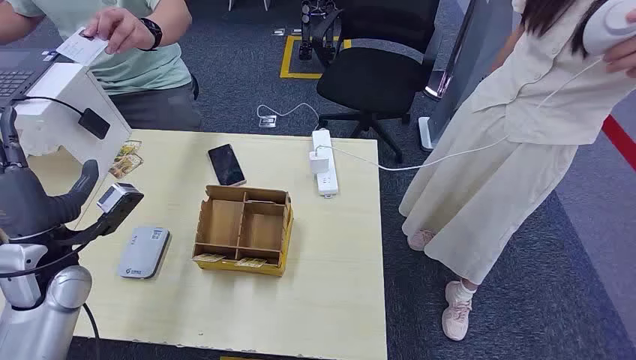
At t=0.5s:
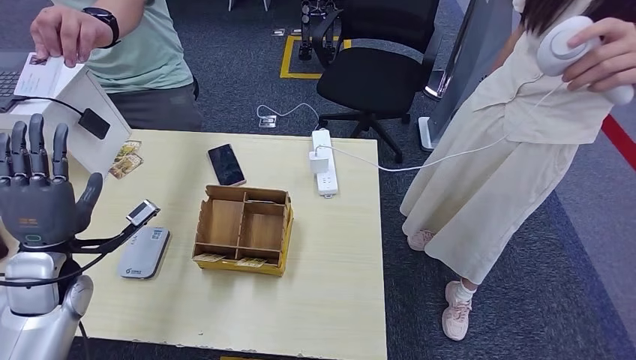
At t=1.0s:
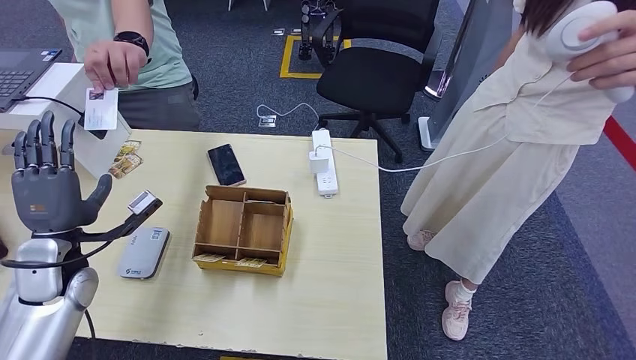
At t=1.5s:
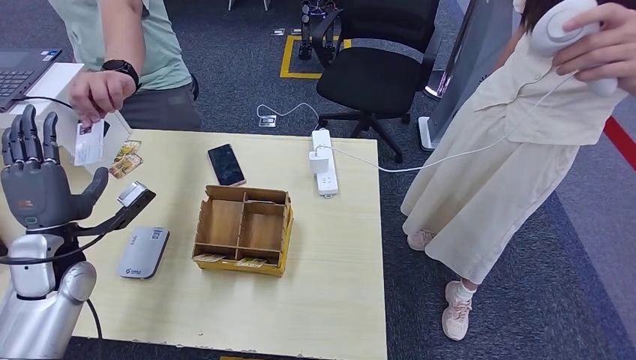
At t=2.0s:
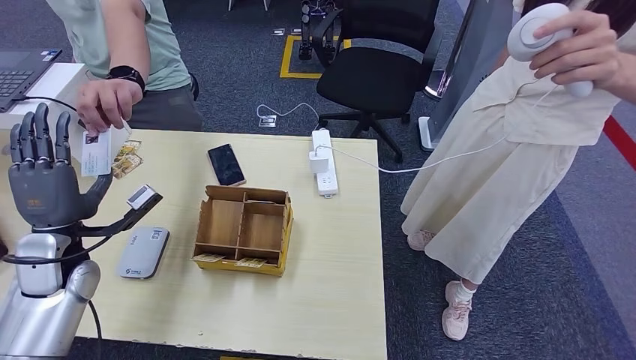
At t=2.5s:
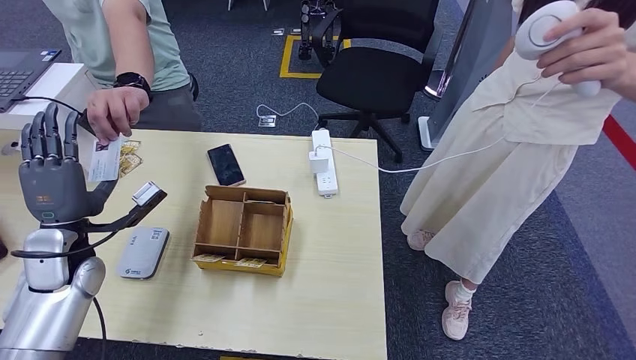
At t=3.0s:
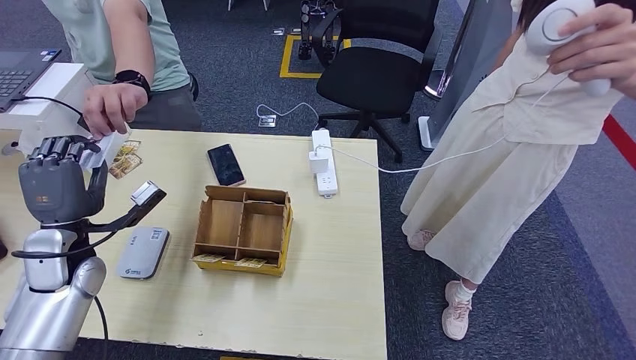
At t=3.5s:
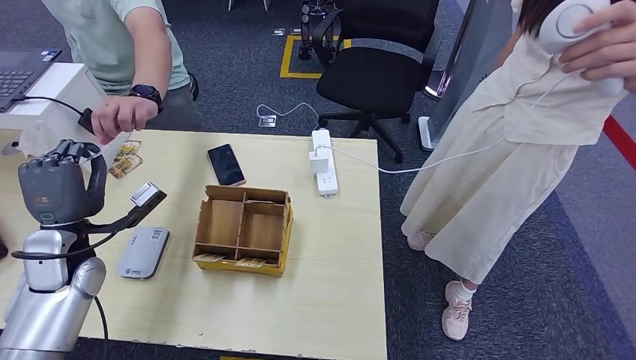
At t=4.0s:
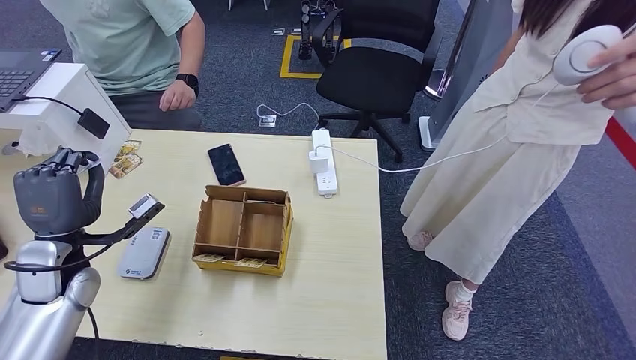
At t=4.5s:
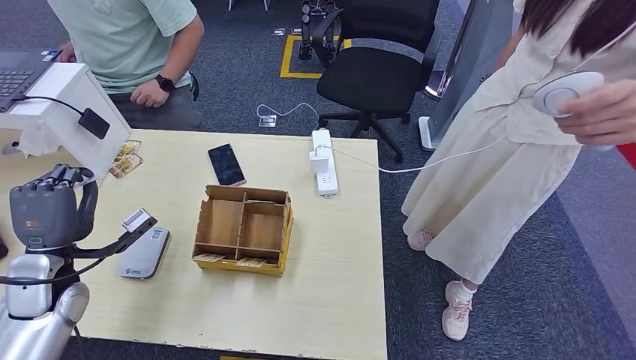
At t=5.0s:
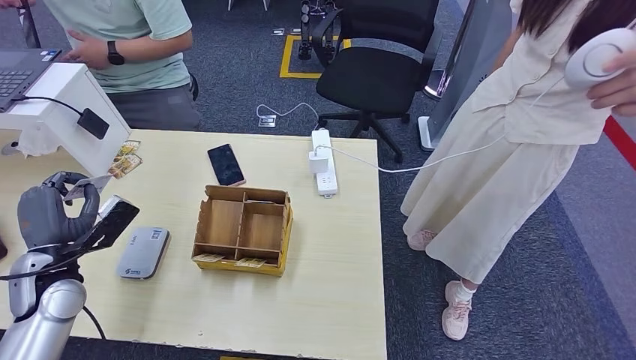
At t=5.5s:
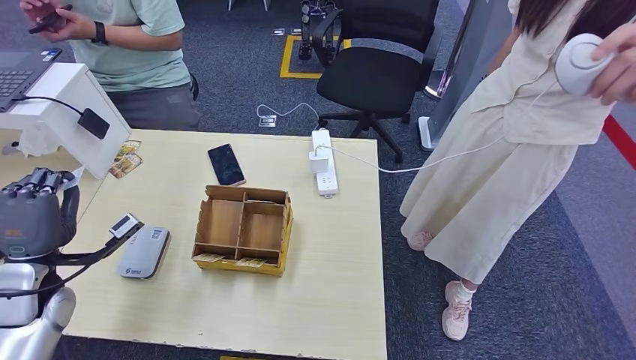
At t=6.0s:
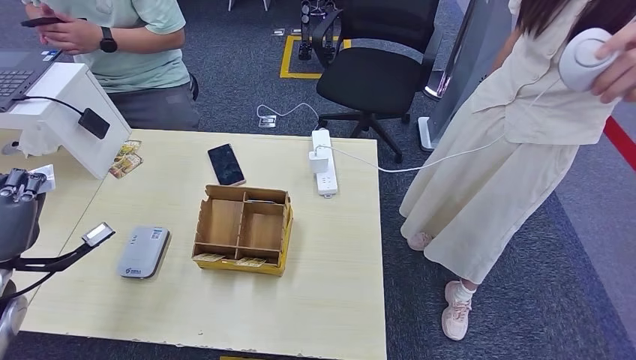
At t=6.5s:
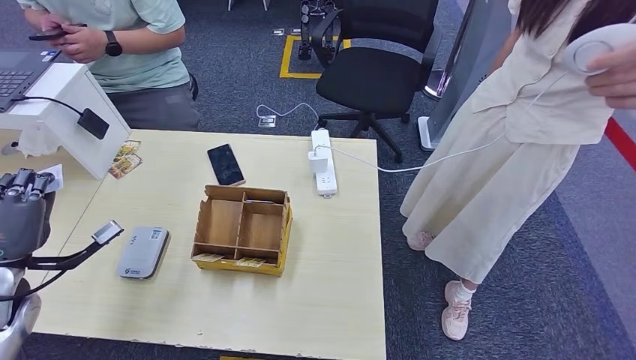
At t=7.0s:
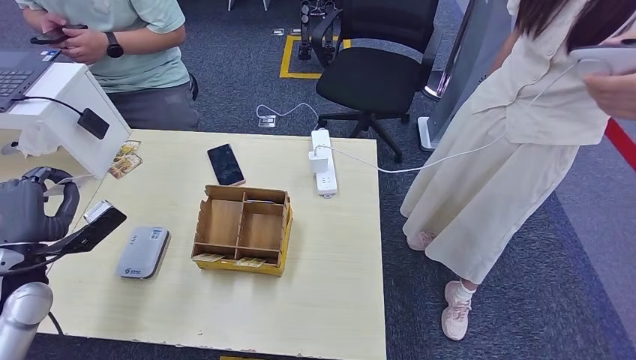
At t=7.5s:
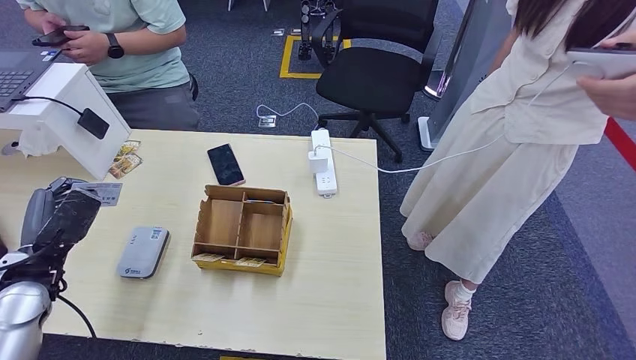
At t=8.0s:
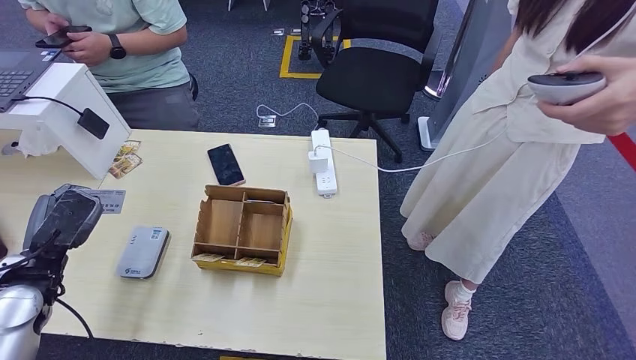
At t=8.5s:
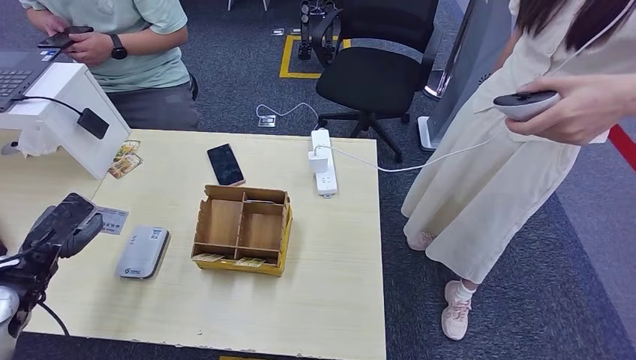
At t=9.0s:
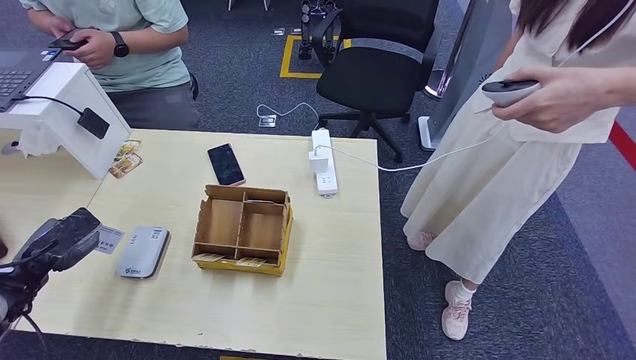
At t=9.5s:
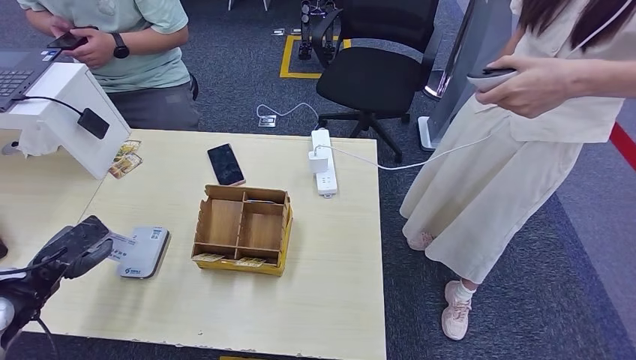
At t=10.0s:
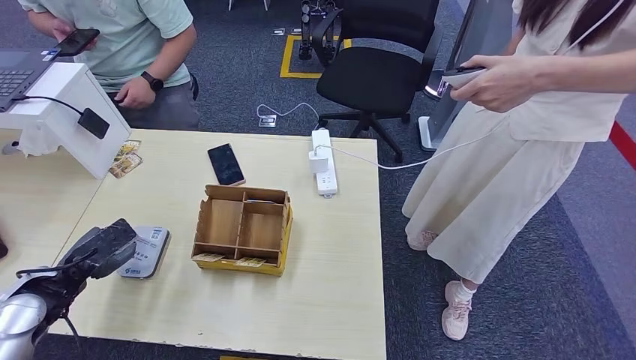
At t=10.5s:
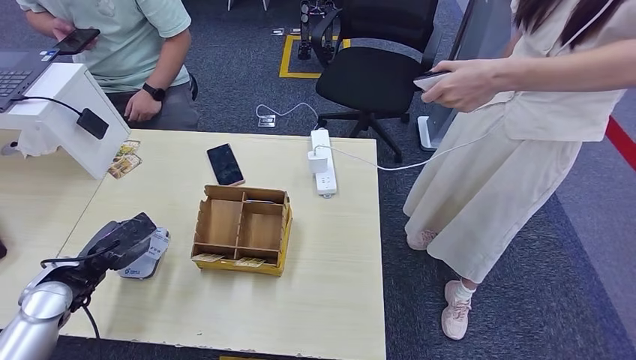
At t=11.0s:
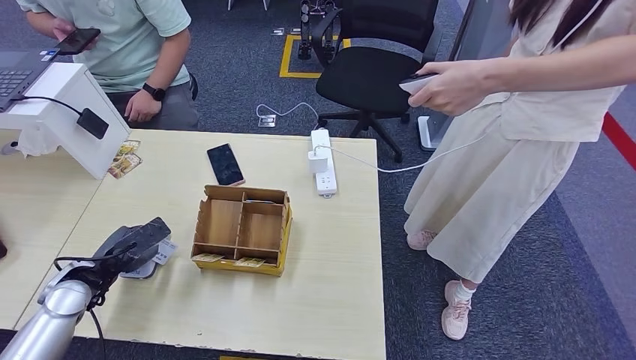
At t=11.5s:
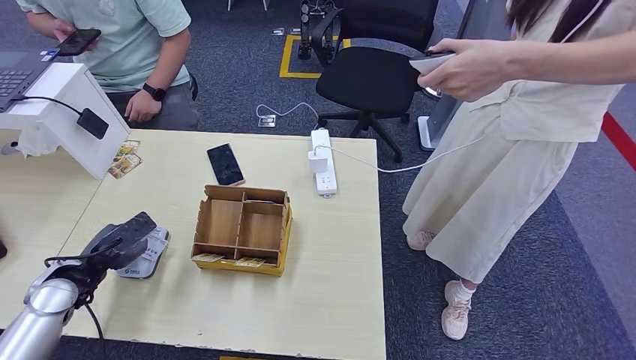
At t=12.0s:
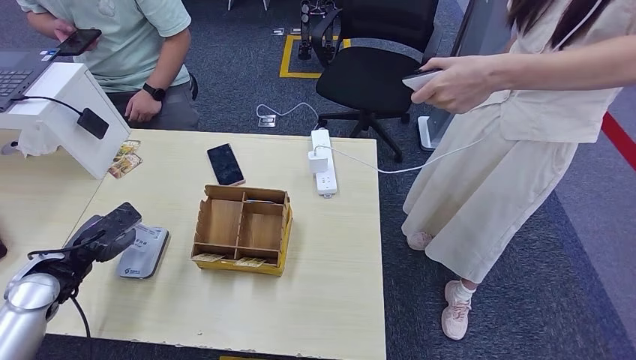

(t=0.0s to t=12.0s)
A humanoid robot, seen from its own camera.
Step, t=0.0s - t=3.5s: Take the ID card from the person's hand.
t=2.0s - t=4.0s: Both hands stay put.
t=4.0s - t=6.0s: The left hand shifts some 10 cm to the left and backward.
t=10.0s - t=12.0s: The hands stay close to where they were, moving slightly.

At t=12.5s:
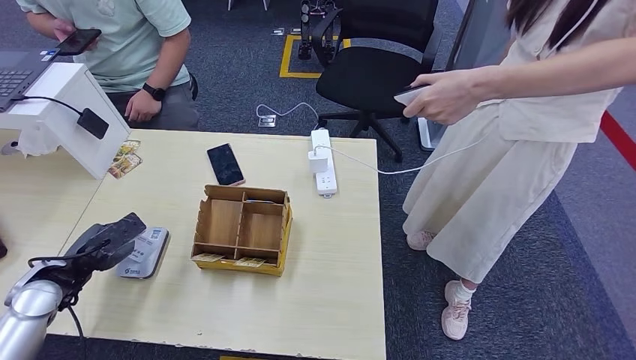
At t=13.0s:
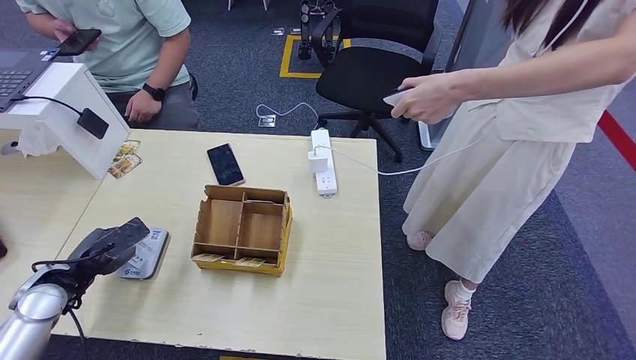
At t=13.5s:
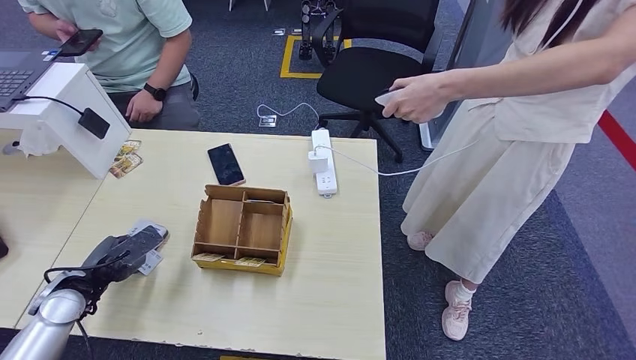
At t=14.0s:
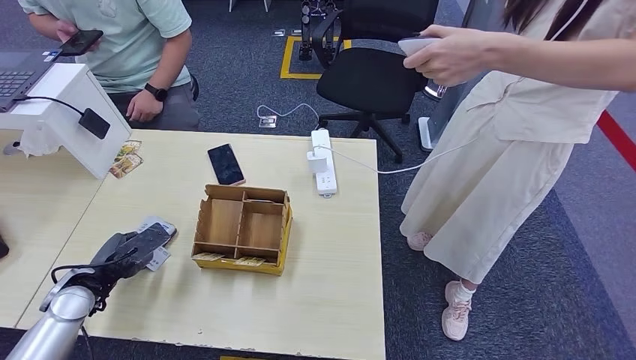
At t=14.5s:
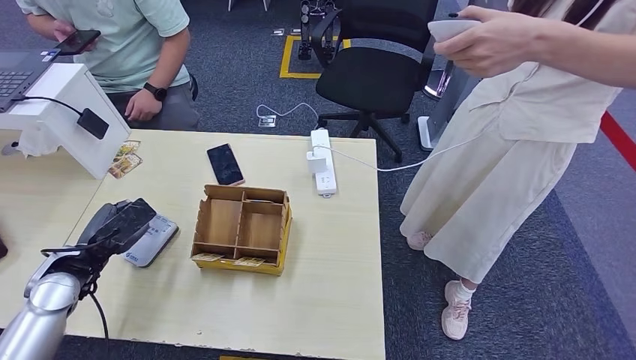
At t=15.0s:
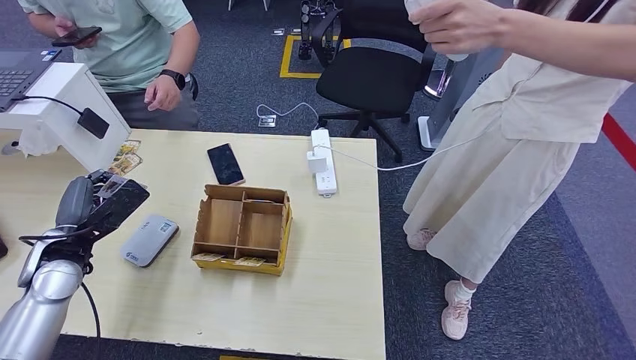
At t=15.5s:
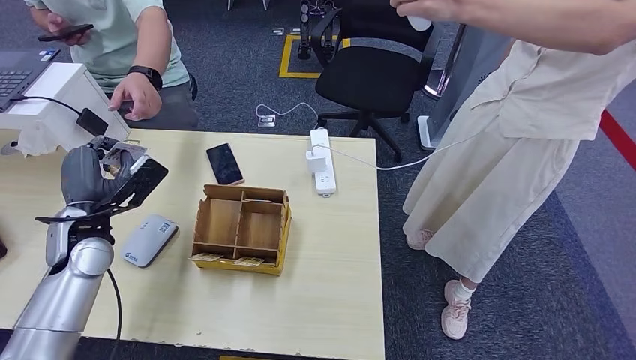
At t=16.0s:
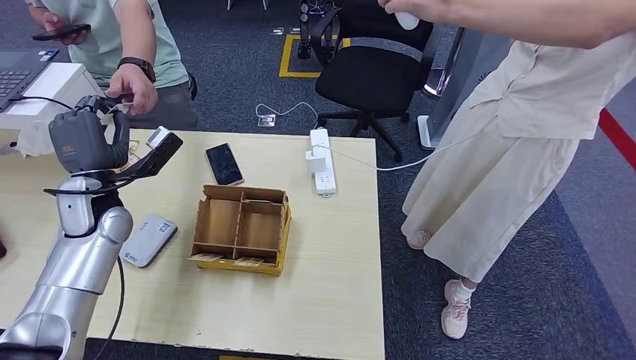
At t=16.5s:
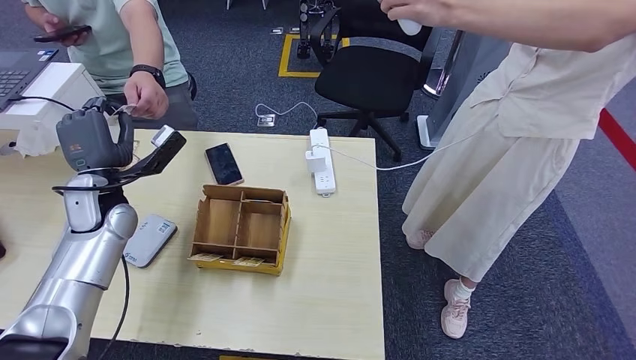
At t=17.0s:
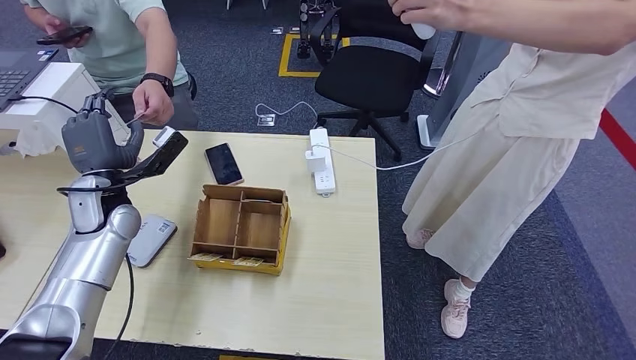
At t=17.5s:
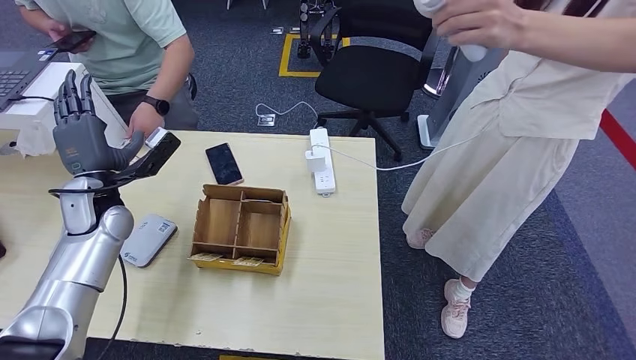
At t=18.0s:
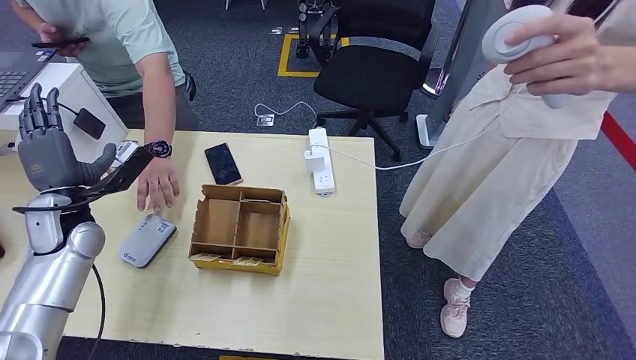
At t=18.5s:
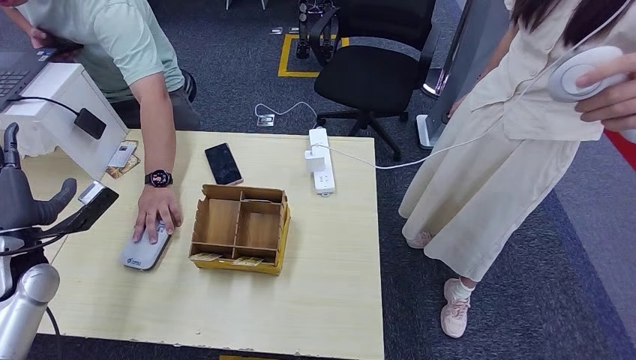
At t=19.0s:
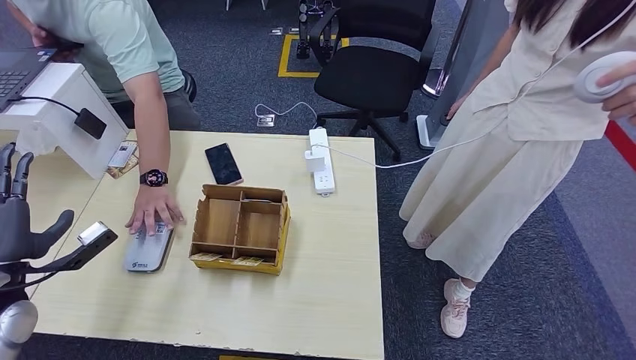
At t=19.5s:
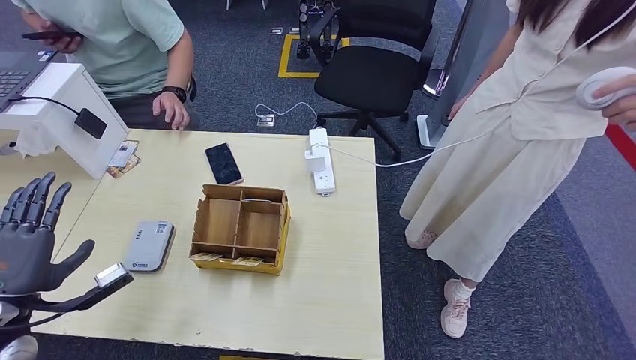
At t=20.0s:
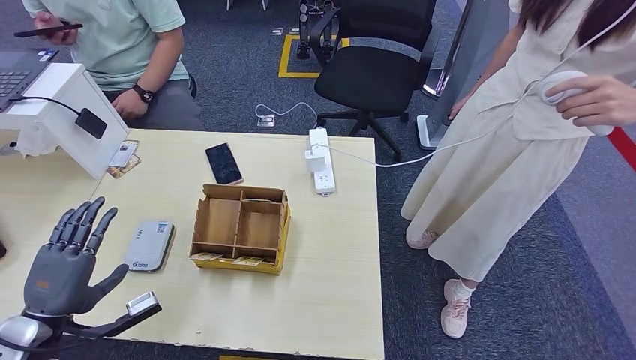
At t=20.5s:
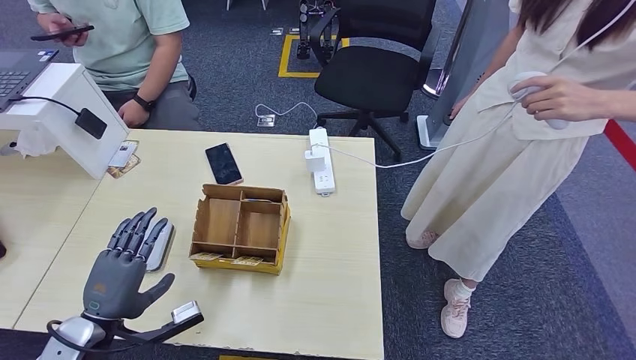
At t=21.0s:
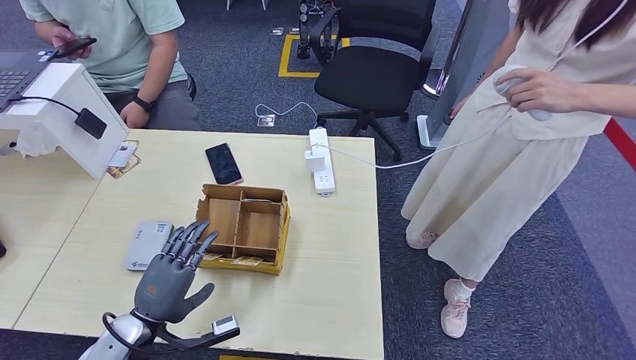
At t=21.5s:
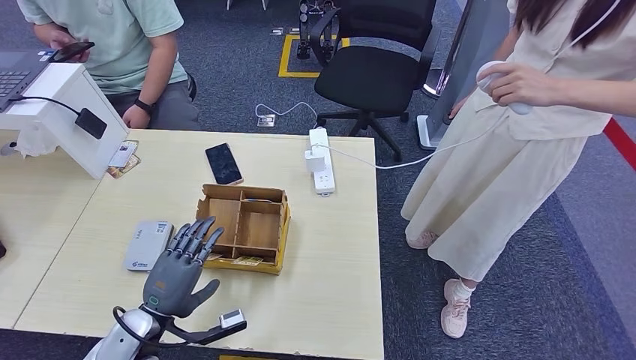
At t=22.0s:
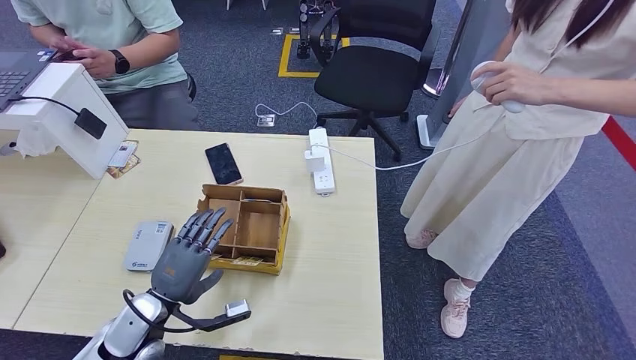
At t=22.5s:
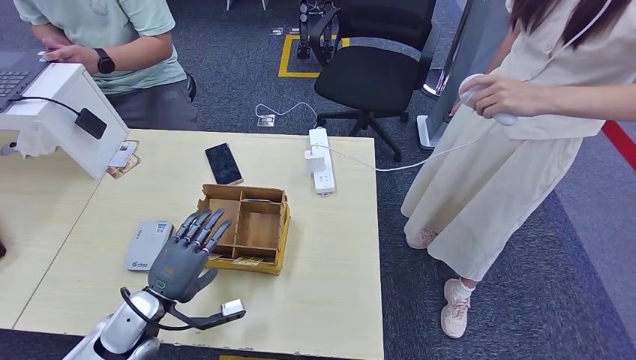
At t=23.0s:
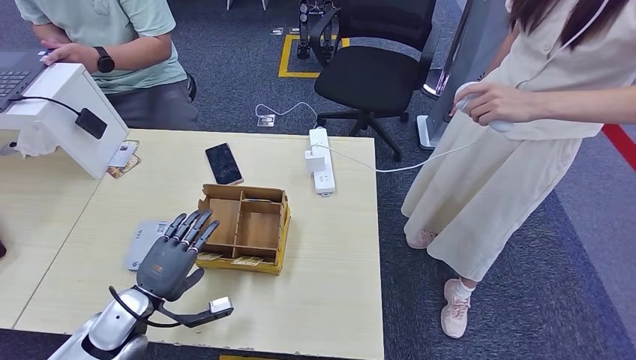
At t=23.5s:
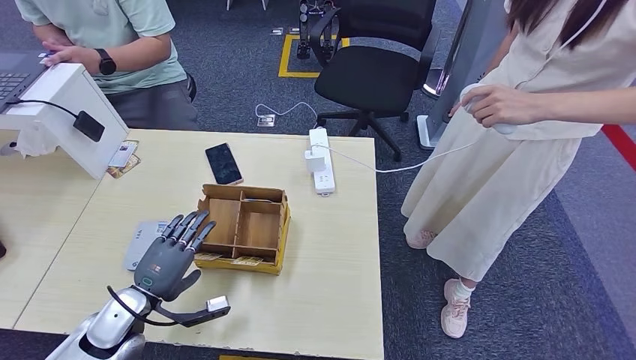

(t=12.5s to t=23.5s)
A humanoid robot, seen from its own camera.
Step, t=14.5s - t=17.0s: Hand the ID card to the person.
t=12.5s - t=14.5s: The hands make only small movements.
t=20.0s - t=21.5s: The left hand travels to the right and downward by approximately 15 cm.
t=21.5s - t=23.5s: The left hand changes place by approximately 5 cm.
